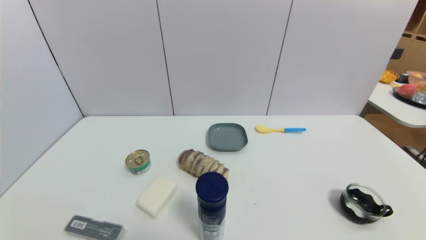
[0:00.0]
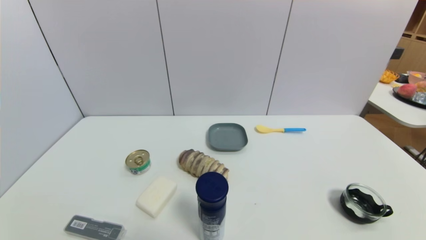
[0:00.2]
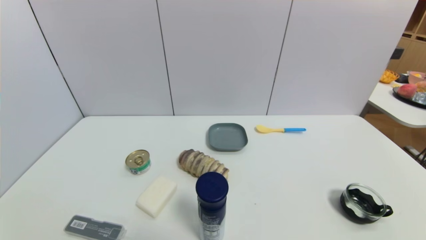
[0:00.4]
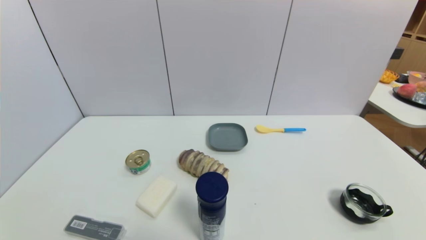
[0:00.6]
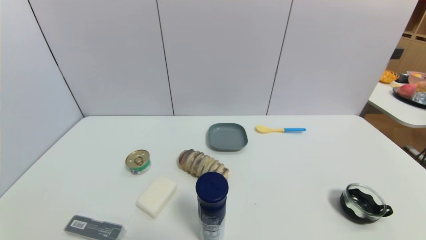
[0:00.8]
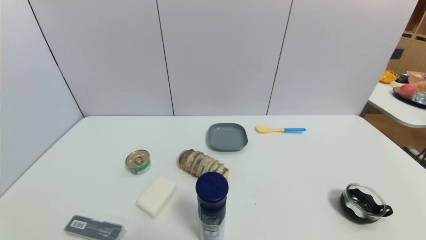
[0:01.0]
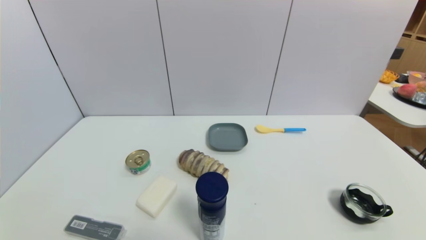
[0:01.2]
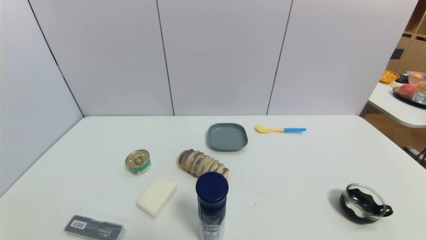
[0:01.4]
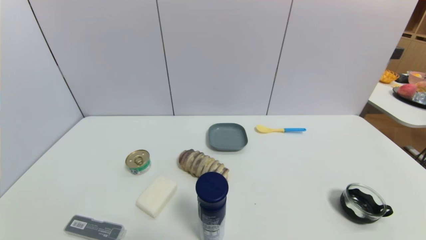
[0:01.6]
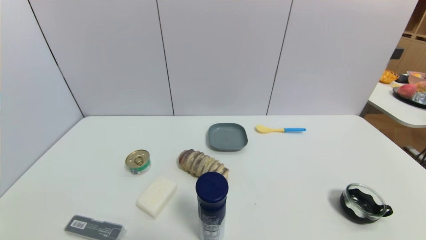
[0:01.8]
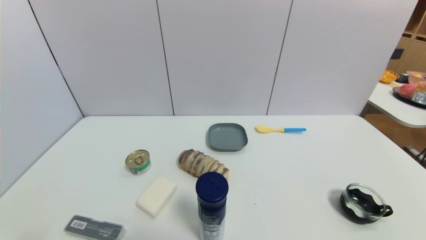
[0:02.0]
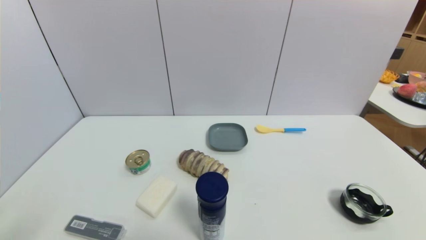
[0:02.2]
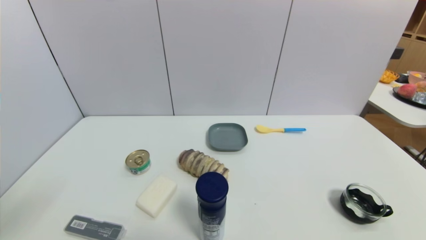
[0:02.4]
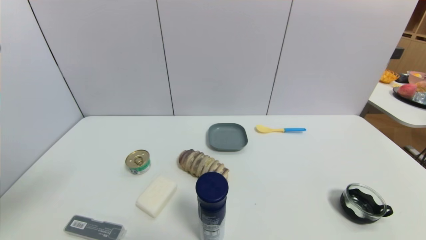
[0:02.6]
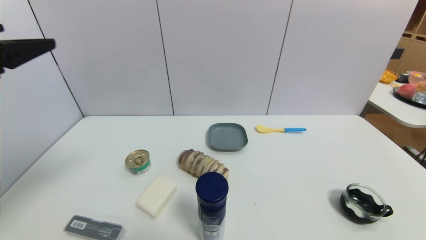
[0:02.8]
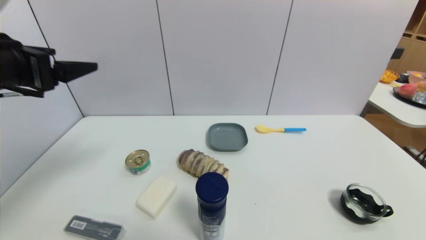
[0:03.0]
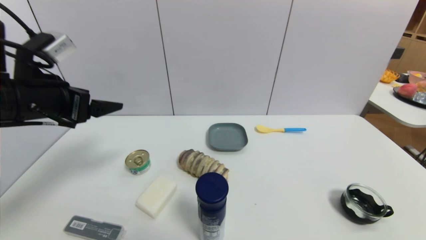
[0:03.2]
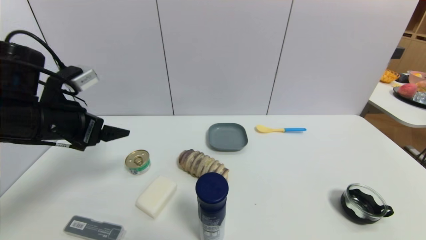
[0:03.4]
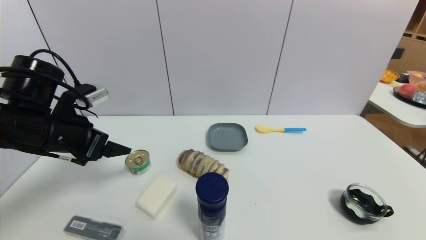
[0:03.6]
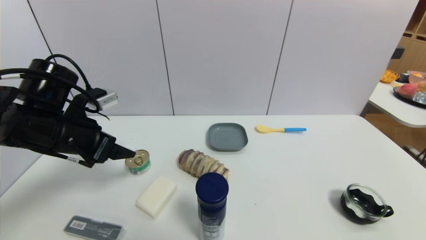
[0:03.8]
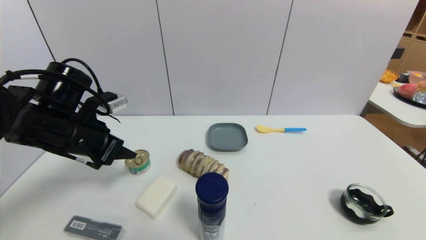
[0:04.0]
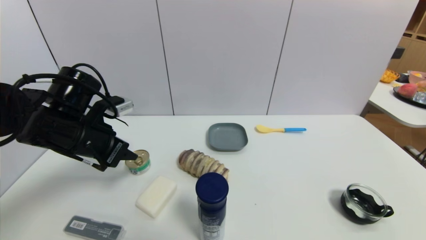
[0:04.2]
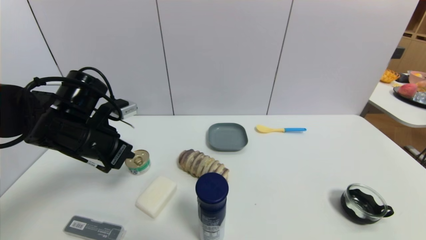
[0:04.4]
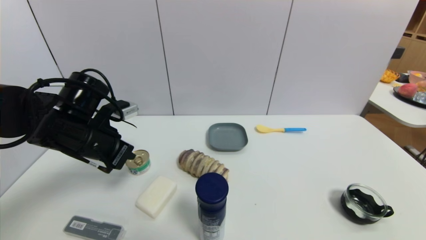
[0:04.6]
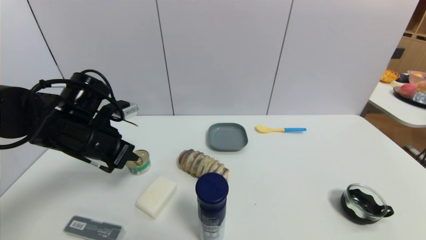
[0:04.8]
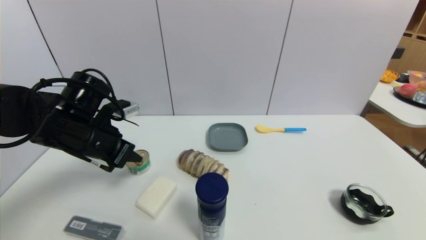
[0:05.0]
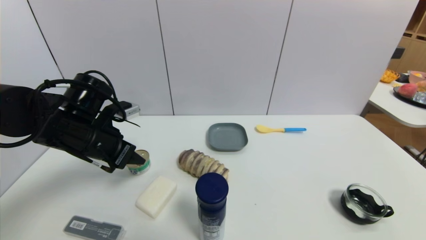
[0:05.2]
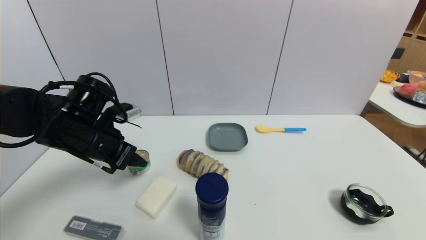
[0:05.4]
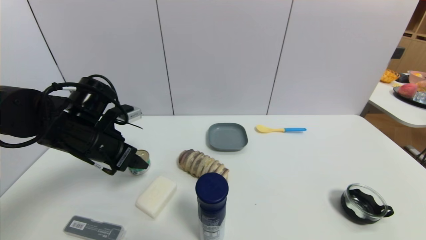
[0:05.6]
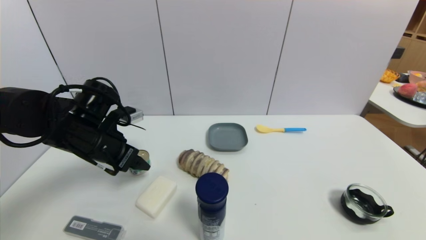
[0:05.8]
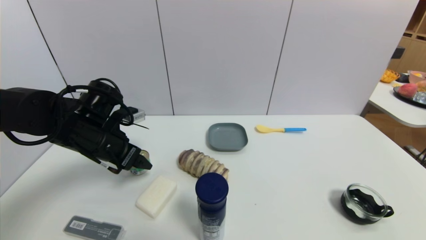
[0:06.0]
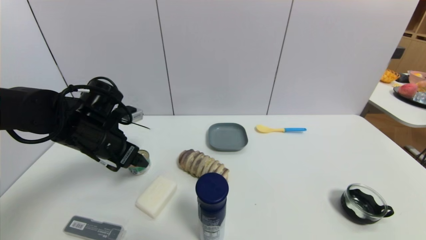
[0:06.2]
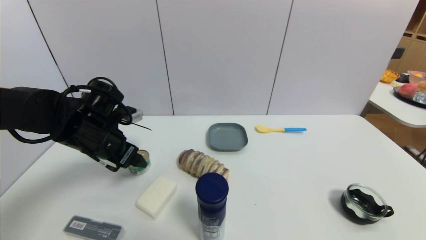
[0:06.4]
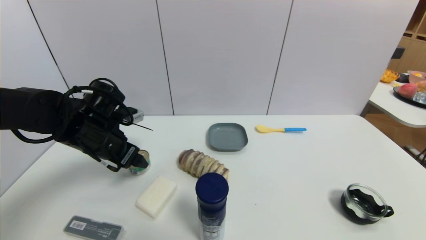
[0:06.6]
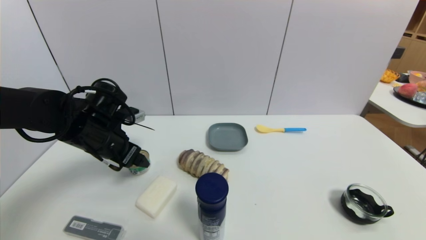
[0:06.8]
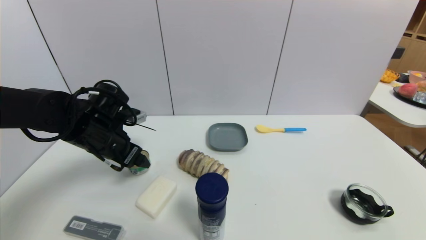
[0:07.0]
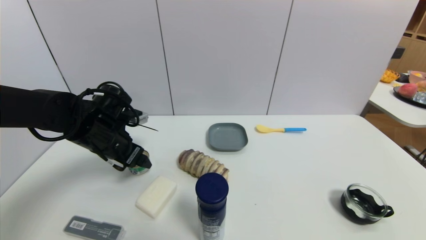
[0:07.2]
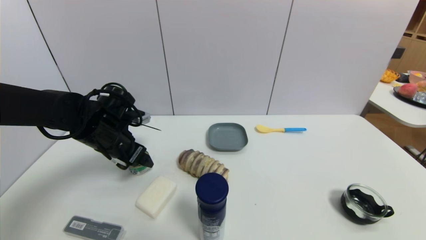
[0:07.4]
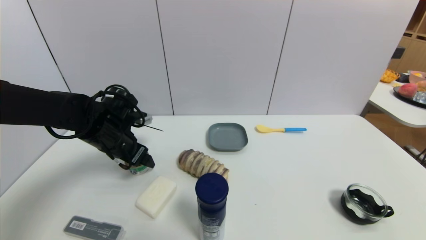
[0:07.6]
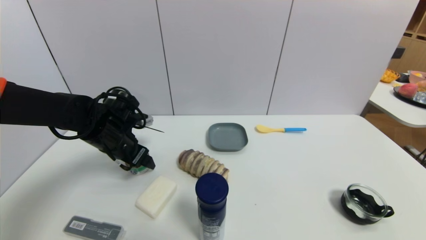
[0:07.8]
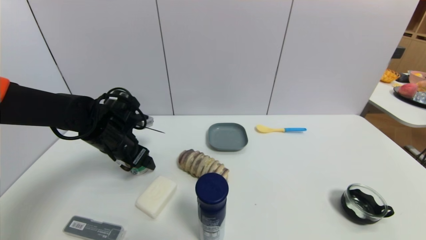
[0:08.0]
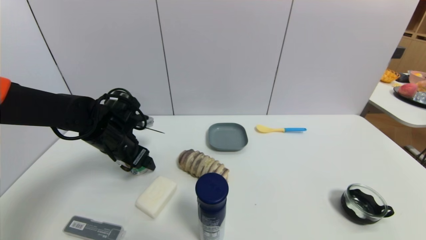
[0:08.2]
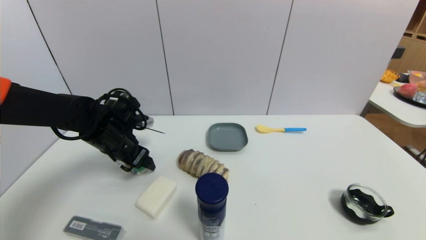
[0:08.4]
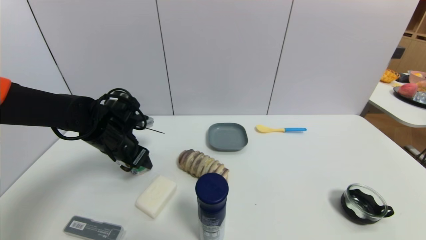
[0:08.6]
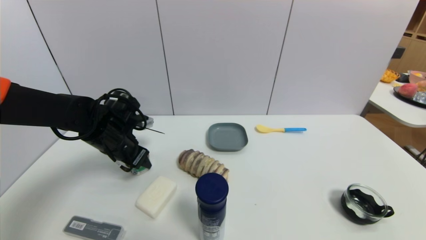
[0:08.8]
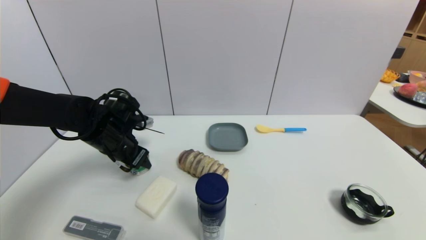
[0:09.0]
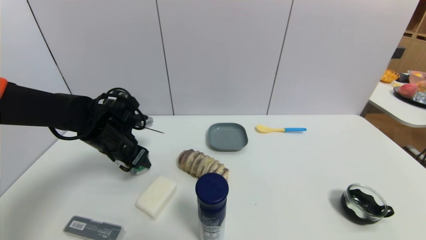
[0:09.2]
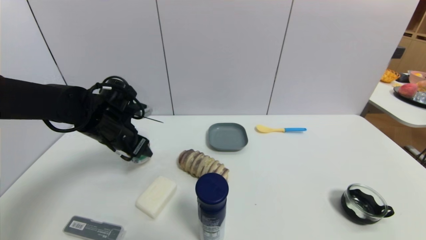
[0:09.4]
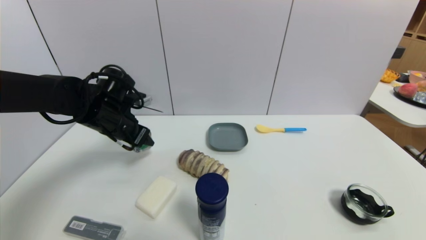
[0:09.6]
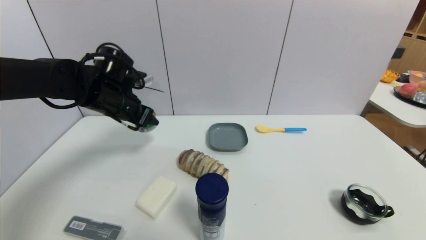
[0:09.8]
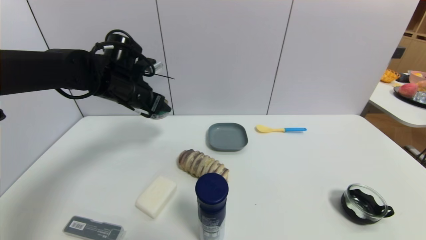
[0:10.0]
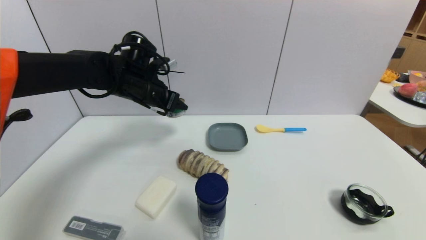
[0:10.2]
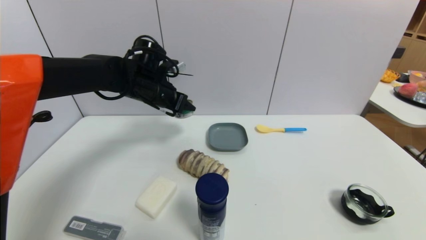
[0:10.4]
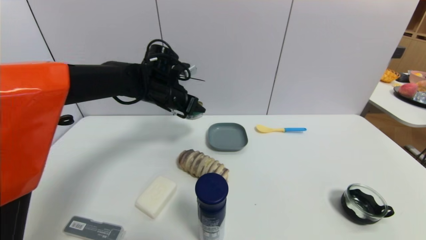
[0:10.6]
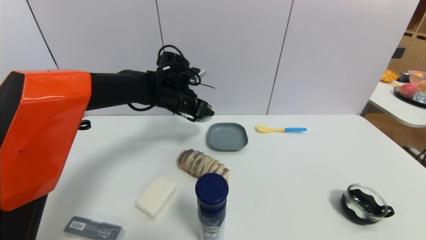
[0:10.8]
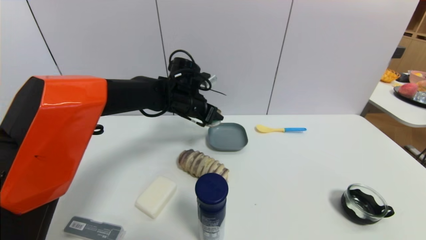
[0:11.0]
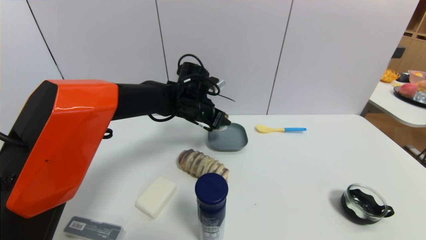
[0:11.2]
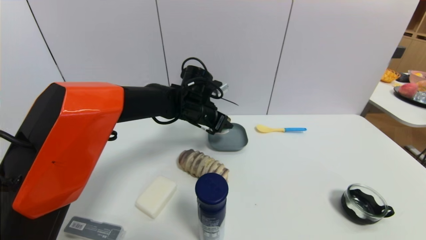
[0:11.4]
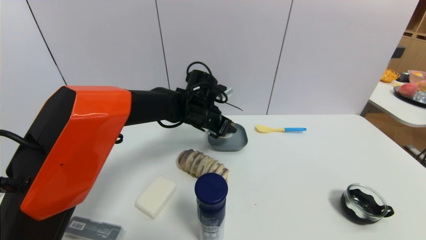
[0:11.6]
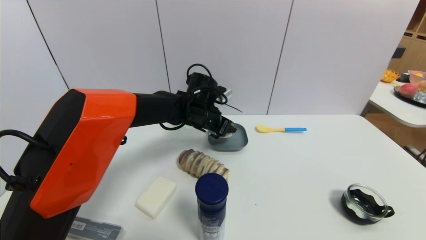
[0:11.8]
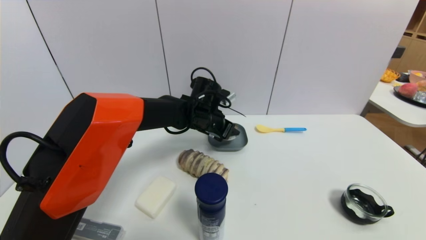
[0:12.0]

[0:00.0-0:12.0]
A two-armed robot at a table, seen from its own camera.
Task of the whole recording: use a gripper to pick the target object and place on the dish.
Step, 0:00.0 to 0:09.0: Grasp the tin with the left gripper.
0:01.6 to 0:03.0: The left gripper moves upward and forward, roughly 35 cm.
0:03.0 to 0:04.4: The left gripper heads downward and forward, covering about 15 cm, and closes up.
0:04.4 to 0:06.0: The left gripper opens up.
0:06.0 to 0:07.6: The grippers move only a little.
0:07.6 to 0:09.0: The left gripper closes.
0:09.0 to 0:10.4: The left gripper shifts some 15 cm upward, to the right and forward.
0:10.4 to 0:12.0: The left gripper moves to the right and downward, roughly 15 cm.

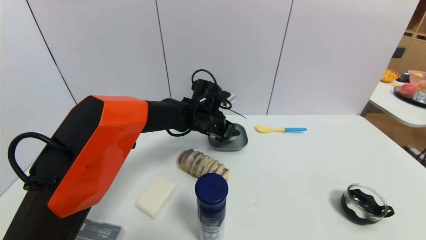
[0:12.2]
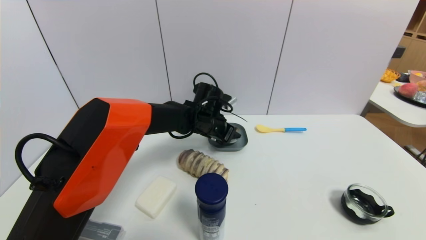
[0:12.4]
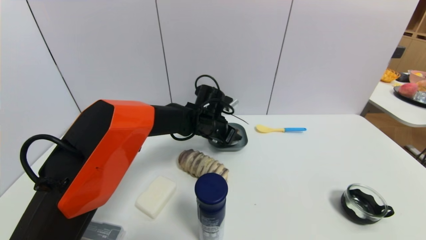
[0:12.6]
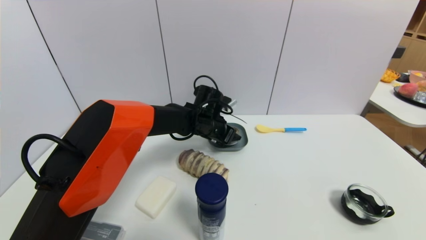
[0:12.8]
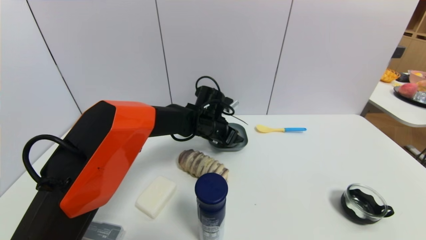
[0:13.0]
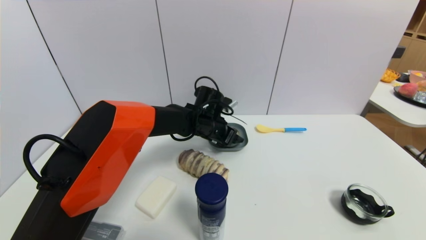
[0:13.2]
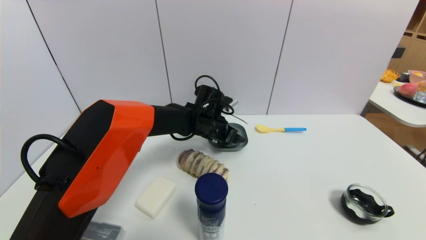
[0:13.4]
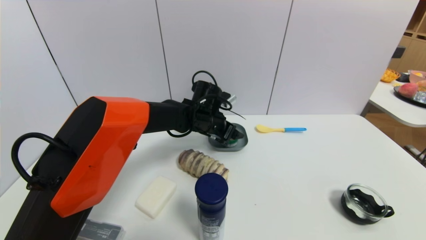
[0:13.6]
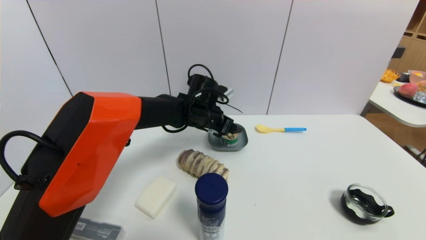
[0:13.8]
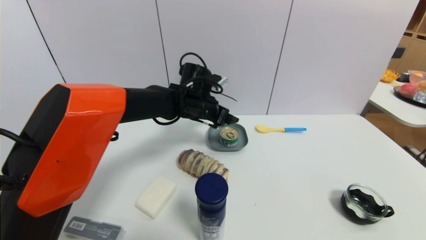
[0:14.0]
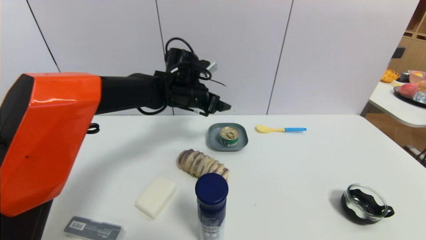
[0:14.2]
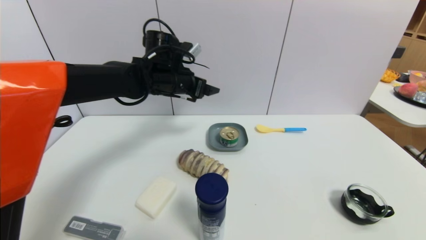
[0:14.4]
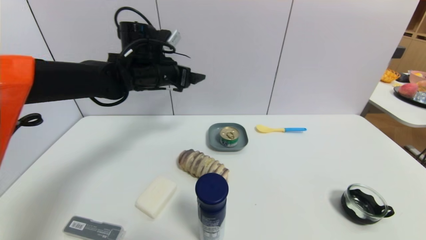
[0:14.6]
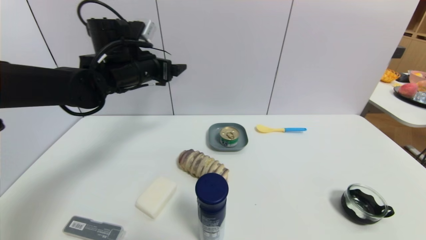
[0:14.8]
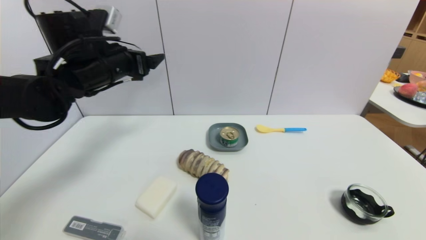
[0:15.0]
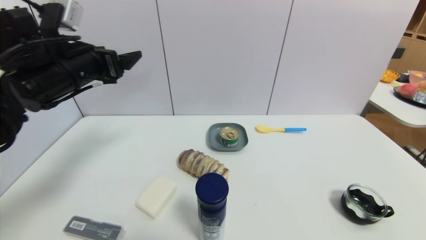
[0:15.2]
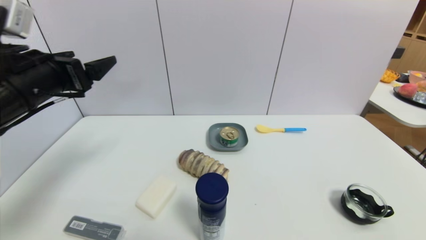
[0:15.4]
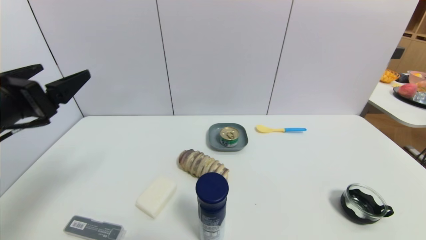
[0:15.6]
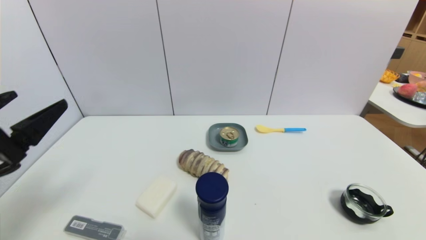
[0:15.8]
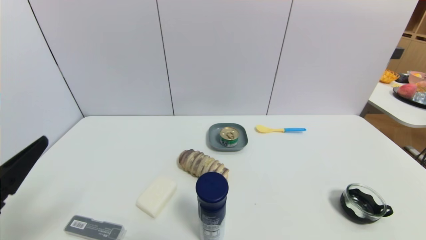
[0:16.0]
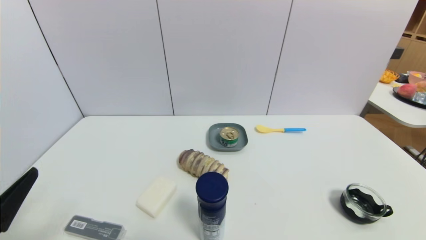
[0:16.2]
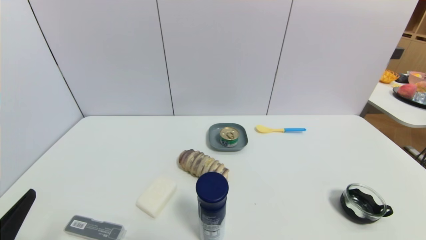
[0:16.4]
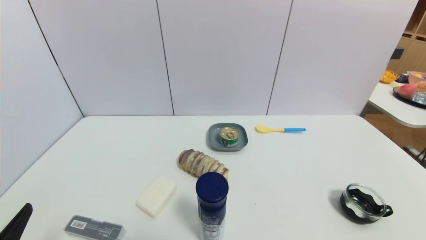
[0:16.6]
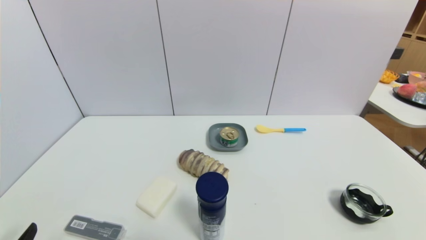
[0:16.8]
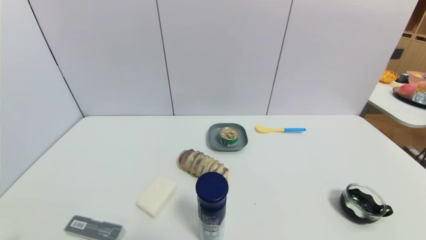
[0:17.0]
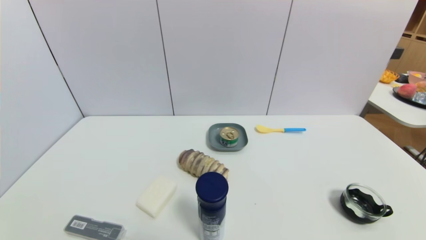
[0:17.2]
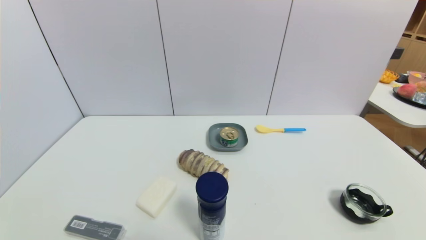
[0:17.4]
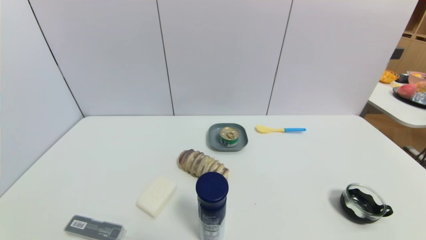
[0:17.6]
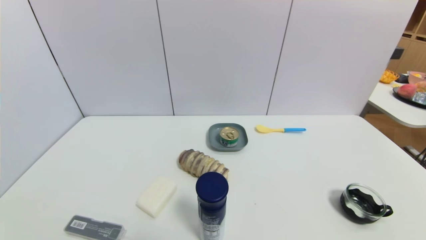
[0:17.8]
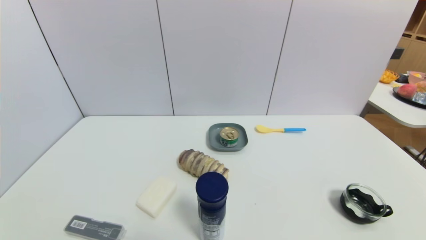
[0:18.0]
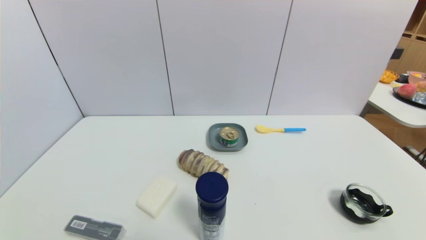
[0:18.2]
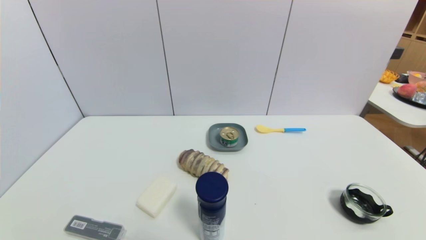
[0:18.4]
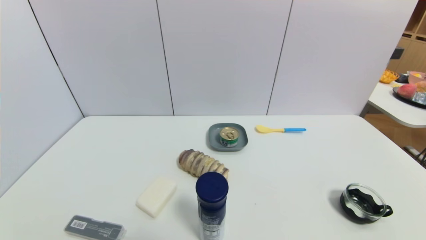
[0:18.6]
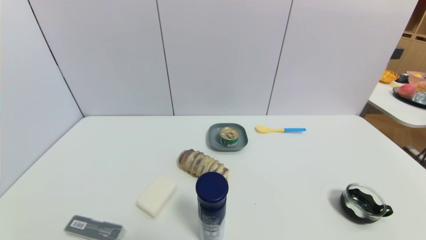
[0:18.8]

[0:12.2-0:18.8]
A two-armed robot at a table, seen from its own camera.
Task of the whole recording: use a gripper to pick the target object and place on the dish.
0:12.2 to 0:13.8: The left gripper opens up.
0:13.8 to 0:15.4: The left gripper moves to the left, backward and upward, about 35 cm.
0:15.4 to 0:17.2: The left gripper moves backward and downward, approximately 30 cm.
